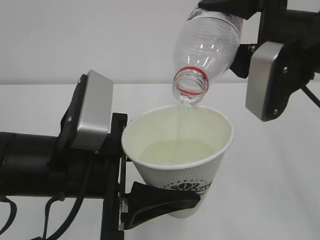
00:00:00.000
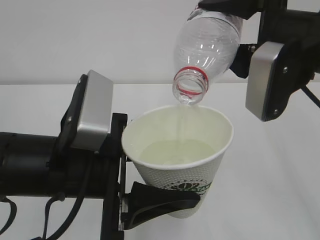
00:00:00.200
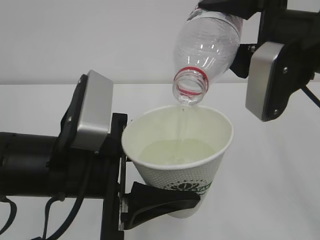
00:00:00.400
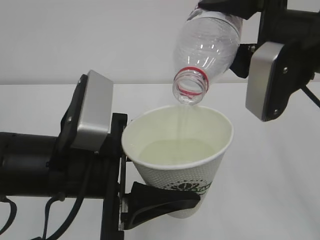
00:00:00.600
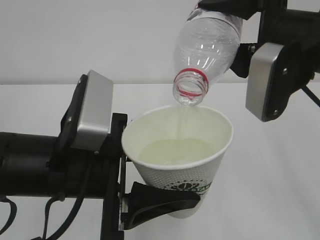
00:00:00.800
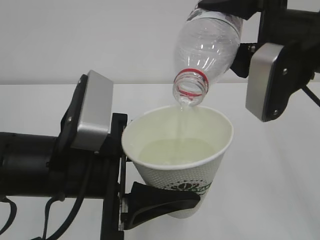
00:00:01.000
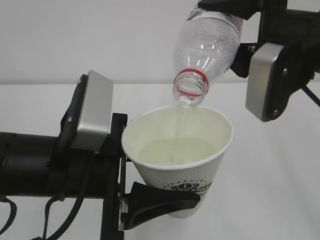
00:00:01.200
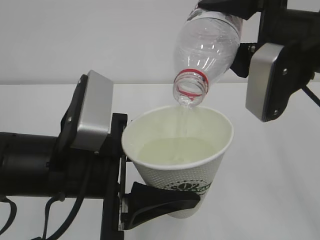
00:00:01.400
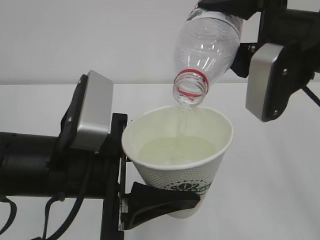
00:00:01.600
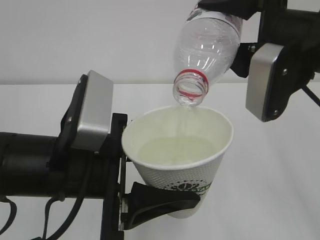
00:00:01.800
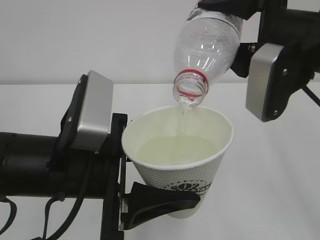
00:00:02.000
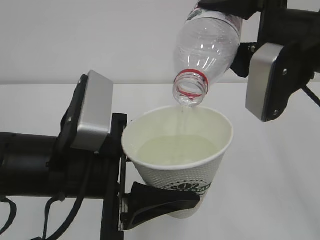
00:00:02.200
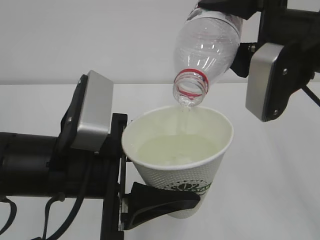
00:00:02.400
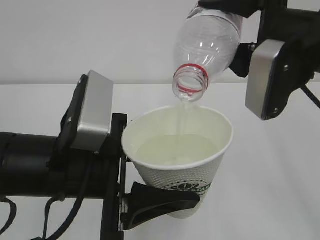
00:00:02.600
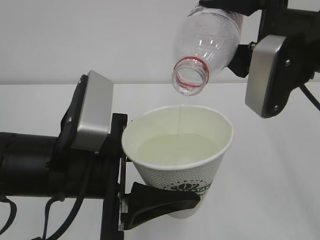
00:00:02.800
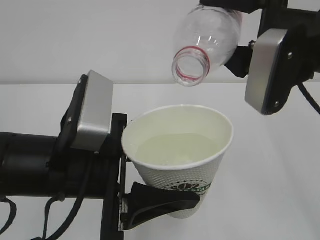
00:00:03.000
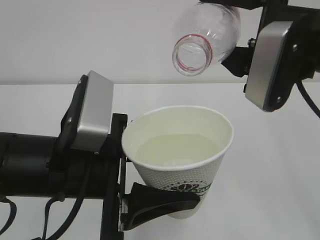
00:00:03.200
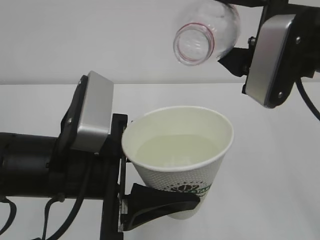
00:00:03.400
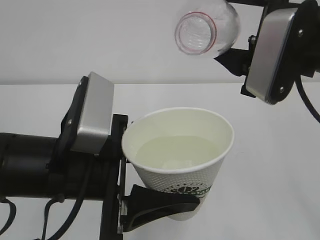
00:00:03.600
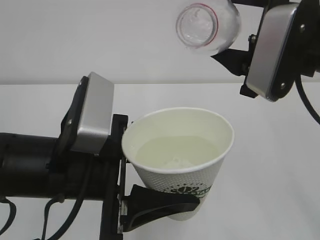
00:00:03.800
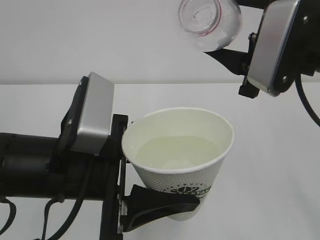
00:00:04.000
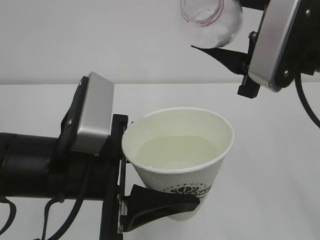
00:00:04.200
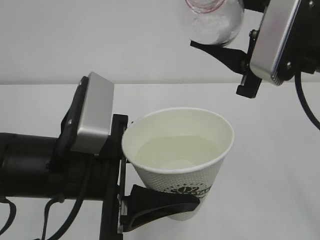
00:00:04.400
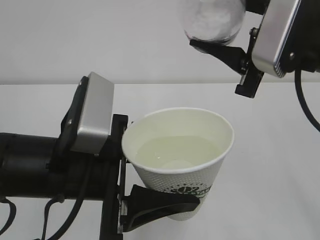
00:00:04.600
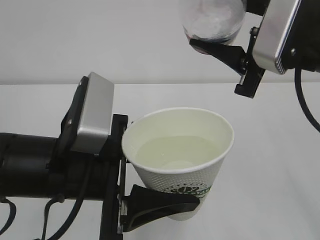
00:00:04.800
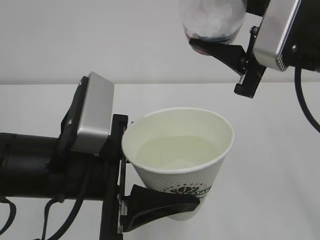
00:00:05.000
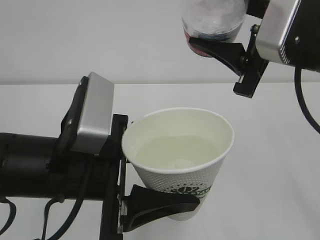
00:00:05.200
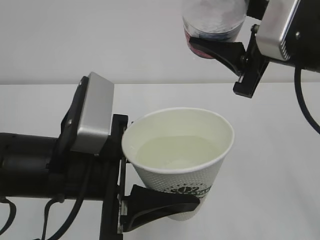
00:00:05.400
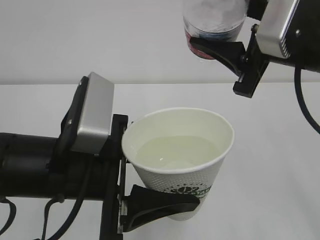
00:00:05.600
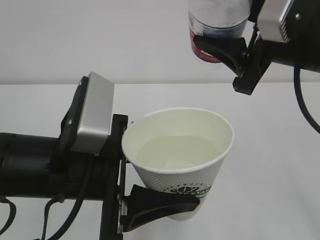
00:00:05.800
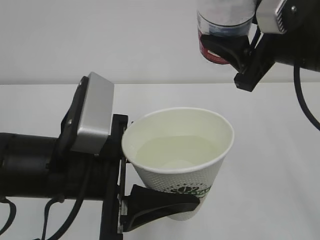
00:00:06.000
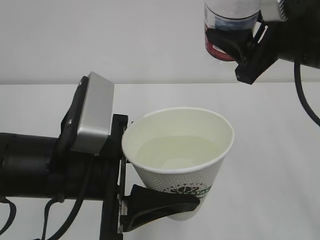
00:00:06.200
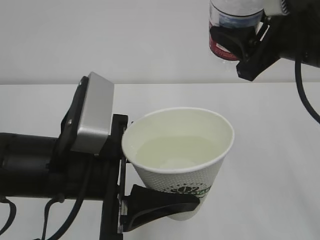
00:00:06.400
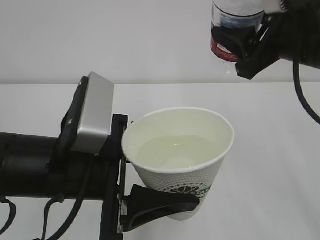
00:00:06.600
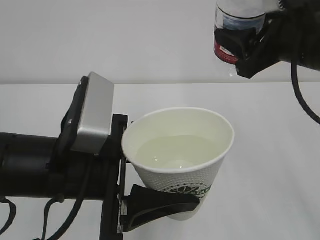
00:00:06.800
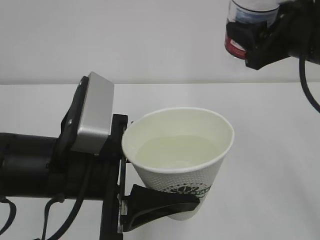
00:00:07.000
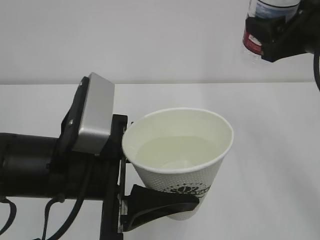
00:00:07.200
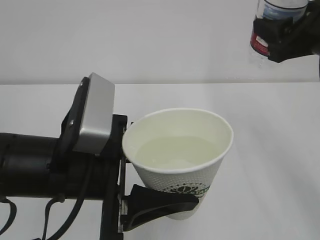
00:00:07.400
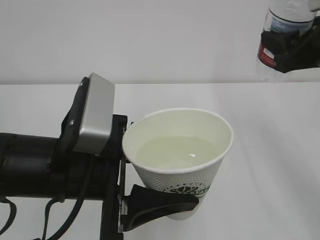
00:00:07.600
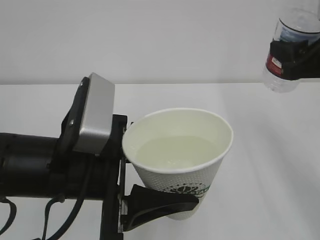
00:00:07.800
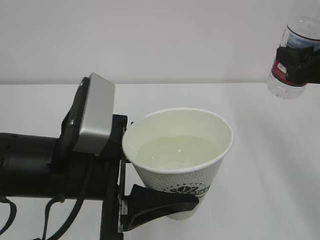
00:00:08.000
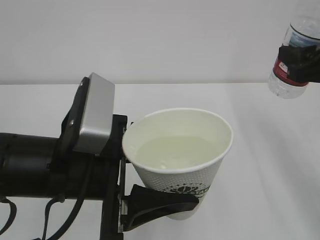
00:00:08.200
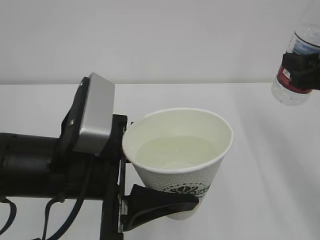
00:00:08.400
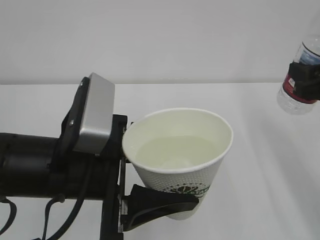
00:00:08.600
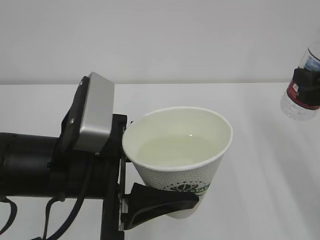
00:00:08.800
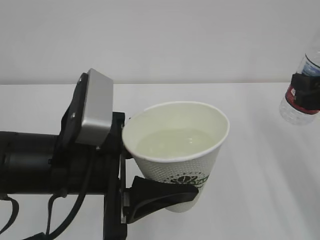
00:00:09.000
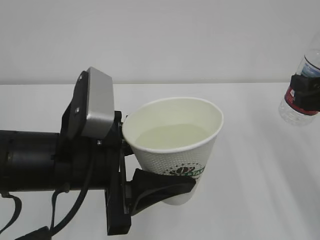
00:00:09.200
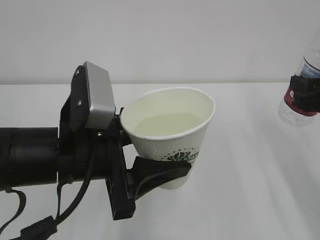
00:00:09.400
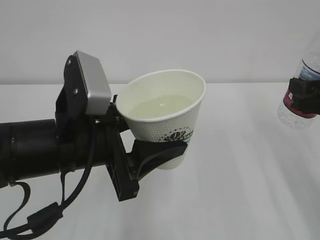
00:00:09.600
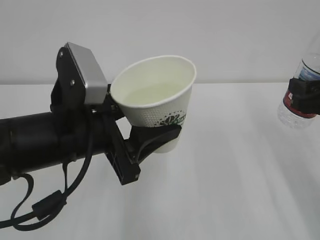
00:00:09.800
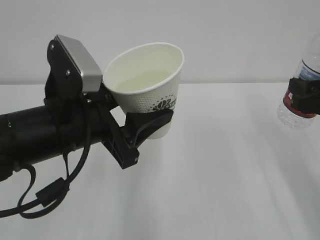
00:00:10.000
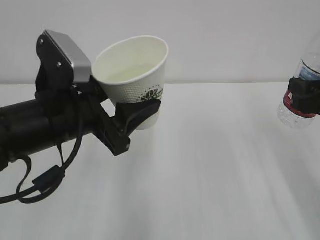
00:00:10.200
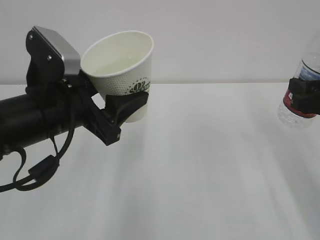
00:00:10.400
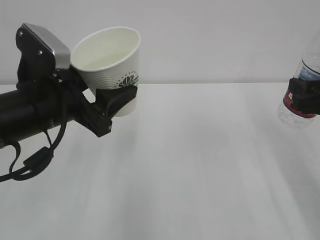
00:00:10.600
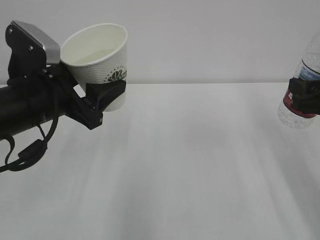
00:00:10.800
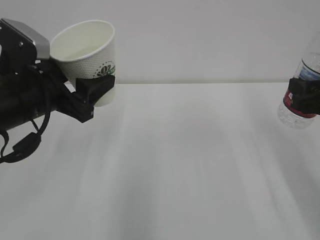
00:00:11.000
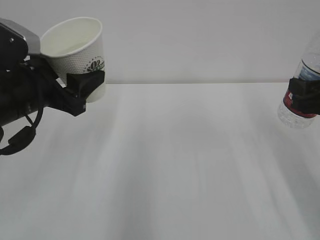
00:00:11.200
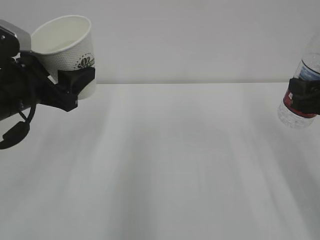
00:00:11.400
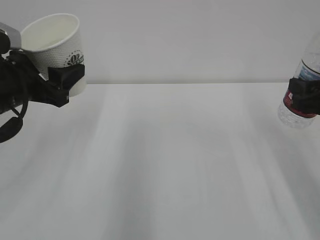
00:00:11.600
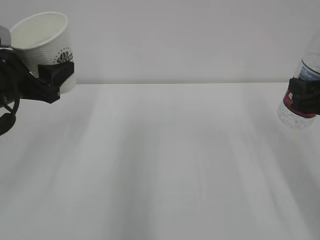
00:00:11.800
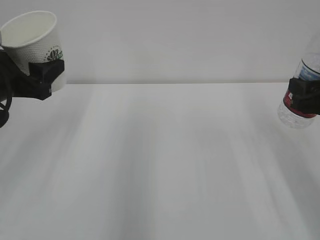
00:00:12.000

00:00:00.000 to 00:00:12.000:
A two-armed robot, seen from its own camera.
00:00:00.000 to 00:00:01.600: Both grippers stay put.
00:00:01.600 to 00:00:03.000: There are only small adjustments of the grippers.
00:00:06.000 to 00:00:07.600: The right gripper is displaced to the right by approximately 5 cm.
00:00:07.600 to 00:00:09.000: The right gripper shifts about 5 cm downward.
00:00:09.000 to 00:00:10.400: The left gripper heads forward, covering approximately 5 cm.
00:00:10.400 to 00:00:12.000: The left gripper moves to the left and forward, roughly 15 cm.

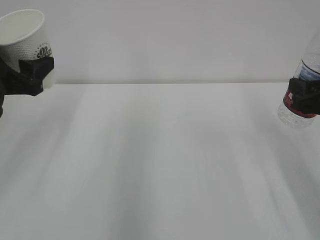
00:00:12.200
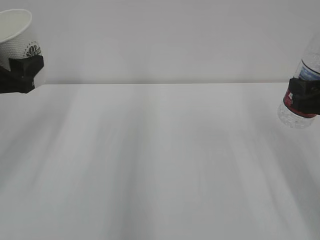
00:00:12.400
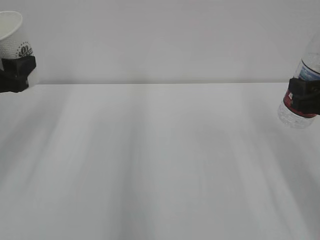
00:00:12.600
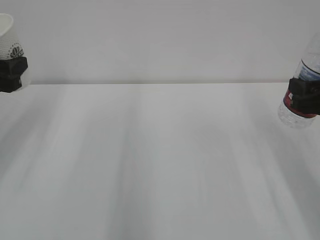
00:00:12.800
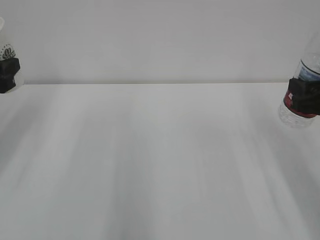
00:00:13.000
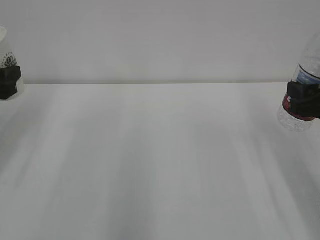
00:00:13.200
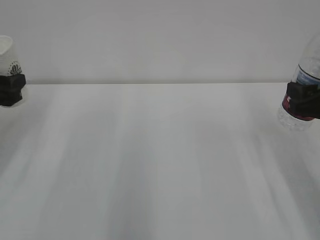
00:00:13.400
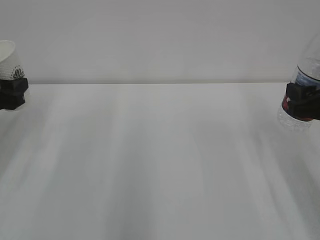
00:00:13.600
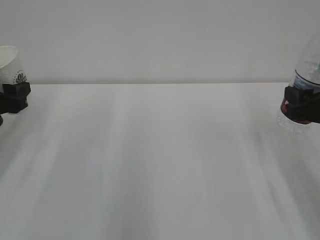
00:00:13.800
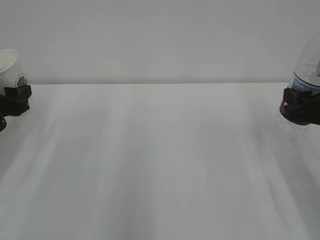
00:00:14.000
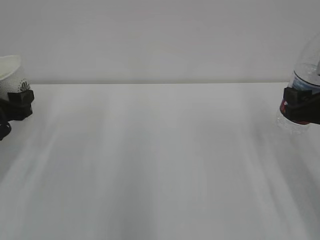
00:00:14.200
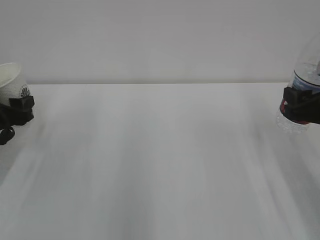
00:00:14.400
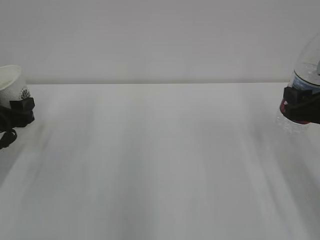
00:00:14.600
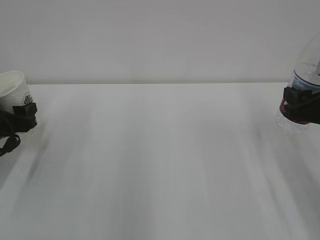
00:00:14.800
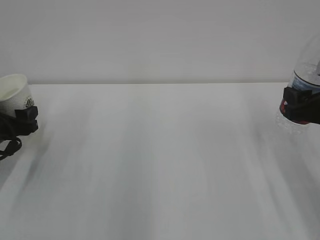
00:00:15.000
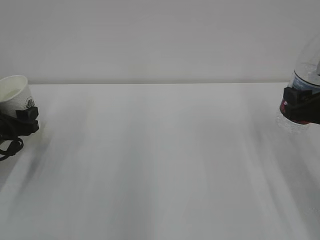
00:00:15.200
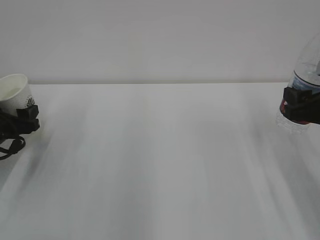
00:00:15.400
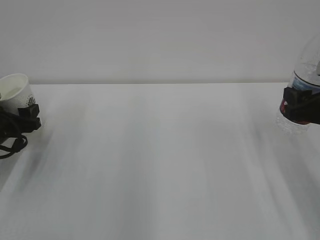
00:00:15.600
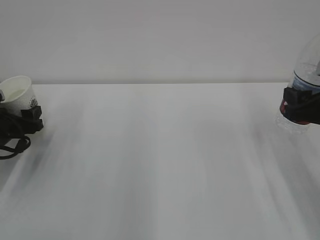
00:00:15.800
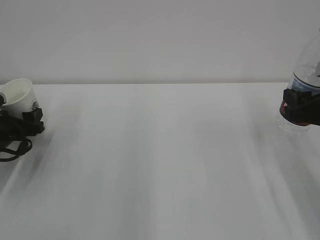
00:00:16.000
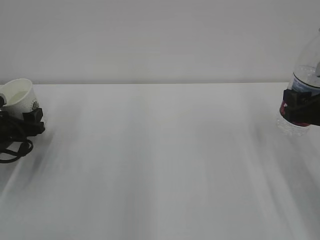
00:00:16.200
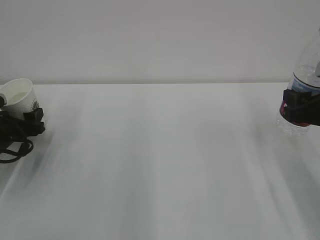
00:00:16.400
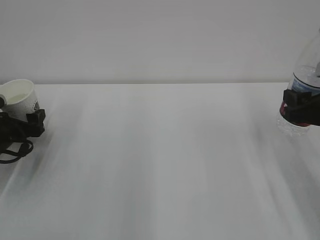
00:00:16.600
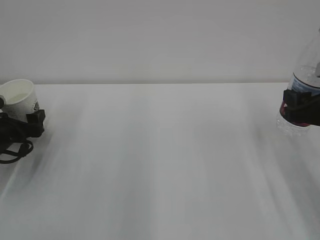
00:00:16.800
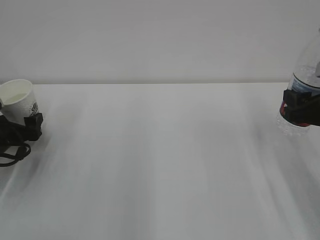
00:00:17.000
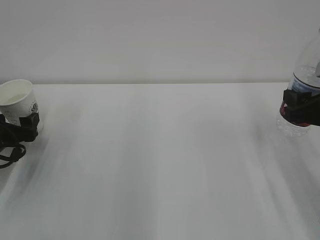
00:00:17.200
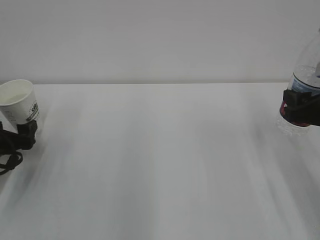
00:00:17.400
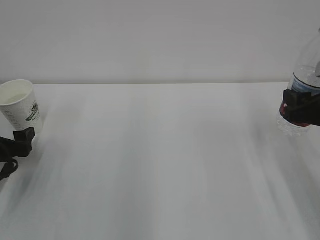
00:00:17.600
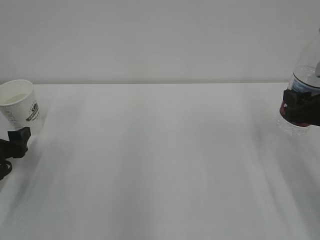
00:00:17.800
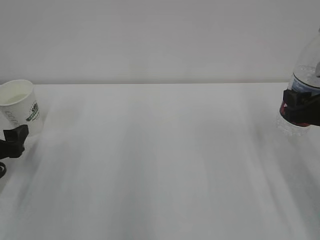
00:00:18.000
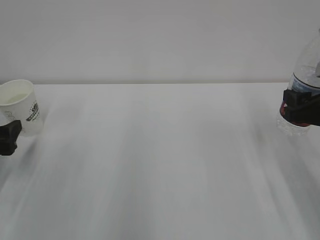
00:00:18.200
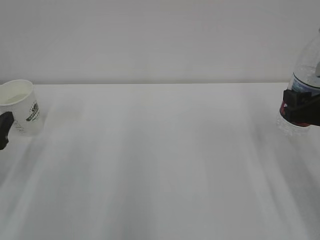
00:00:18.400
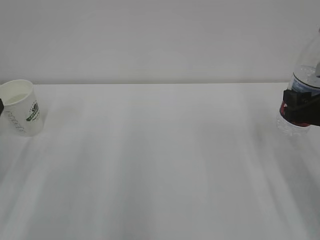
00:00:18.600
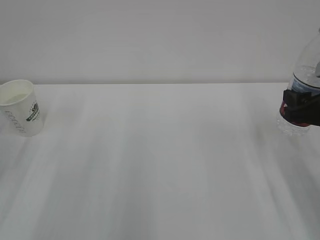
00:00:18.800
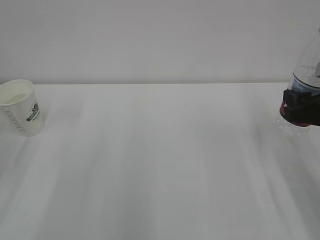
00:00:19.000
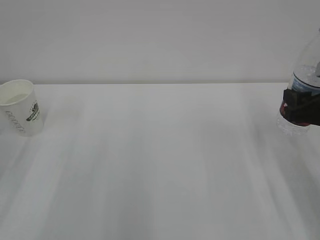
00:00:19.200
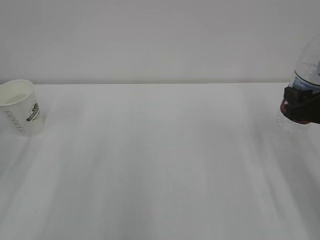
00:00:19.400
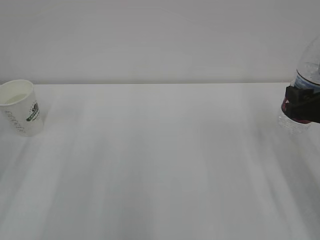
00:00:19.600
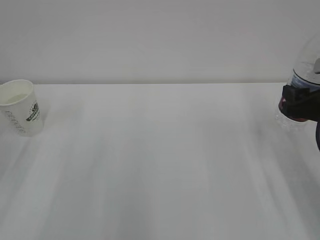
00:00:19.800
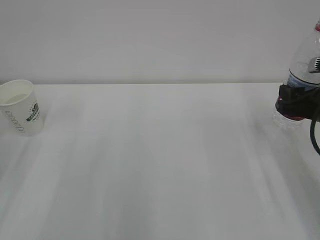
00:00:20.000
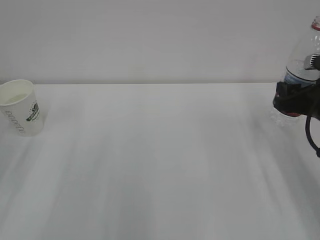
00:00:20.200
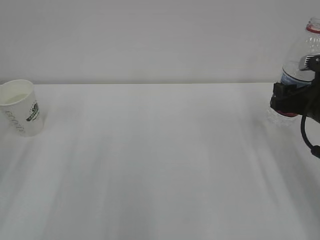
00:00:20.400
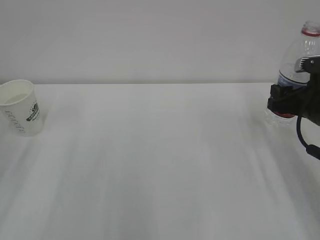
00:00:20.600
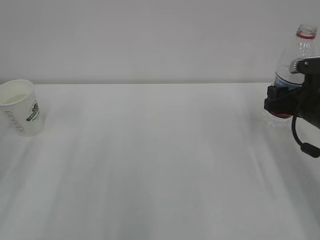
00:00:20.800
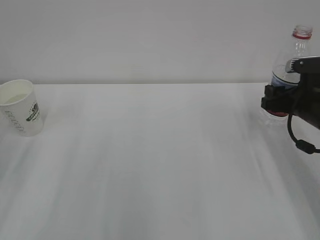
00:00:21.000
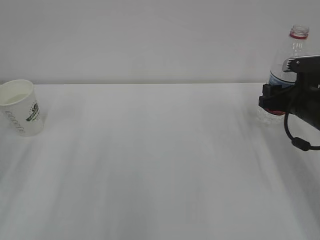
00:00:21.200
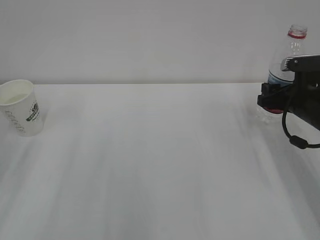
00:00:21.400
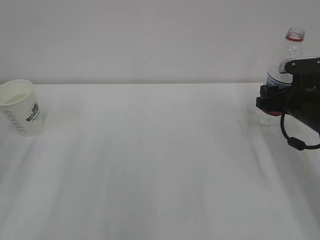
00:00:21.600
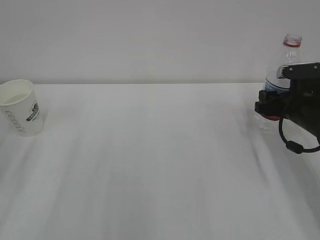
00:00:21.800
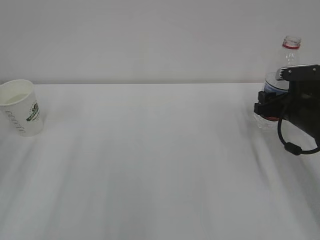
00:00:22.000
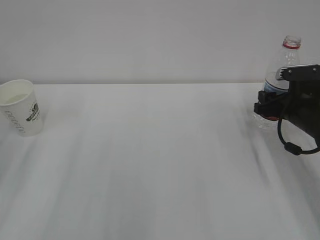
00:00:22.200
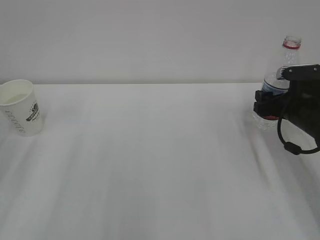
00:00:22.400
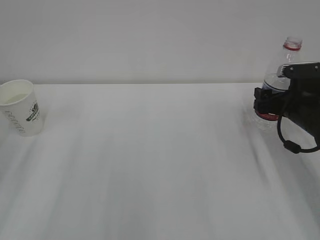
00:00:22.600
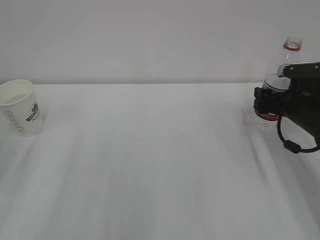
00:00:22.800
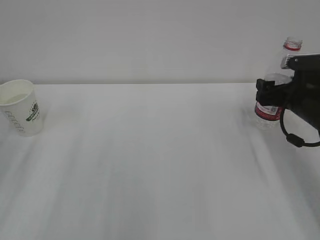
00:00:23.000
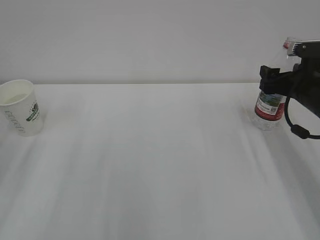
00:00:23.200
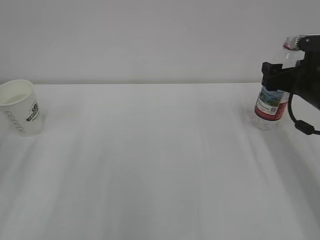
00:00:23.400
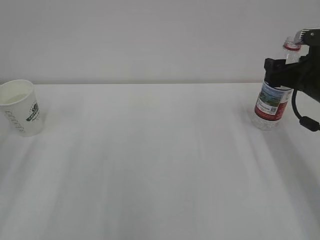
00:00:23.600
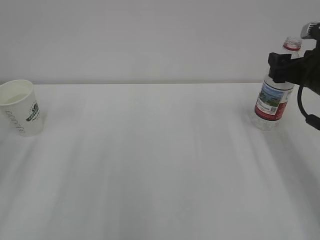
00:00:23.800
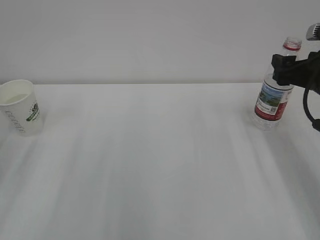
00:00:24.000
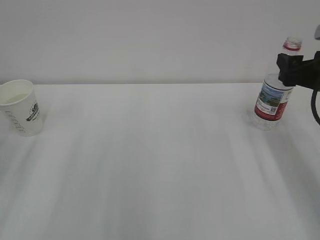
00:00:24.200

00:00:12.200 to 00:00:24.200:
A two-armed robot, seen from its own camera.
00:00:12.200 to 00:00:13.800: The left gripper travels downward and to the left by some 10 cm.
00:00:13.800 to 00:00:15.200: The left gripper heads downward, covering about 5 cm.
00:00:15.200 to 00:00:16.600: The left gripper opens its fingers.
00:00:16.600 to 00:00:18.200: The left gripper is displaced backward and upward by roughly 10 cm.
00:00:18.200 to 00:00:19.800: The left gripper moves upward, approximately 10 cm.
00:00:19.800 to 00:00:21.200: The right gripper travels forward by approximately 5 cm.
00:00:21.200 to 00:00:22.600: The right gripper opens up.
00:00:22.600 to 00:00:24.200: The right gripper goes some 10 cm upward and backward.
